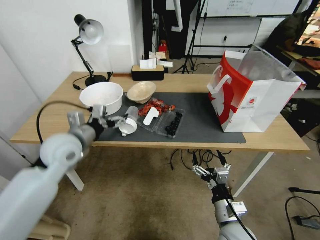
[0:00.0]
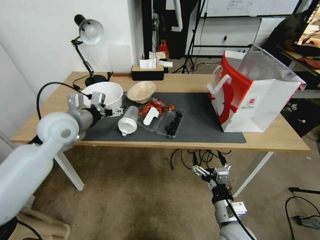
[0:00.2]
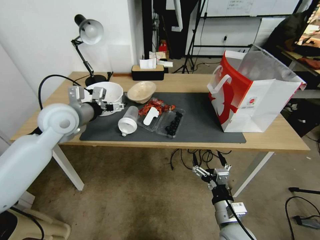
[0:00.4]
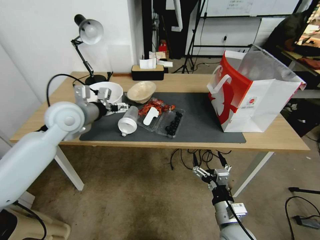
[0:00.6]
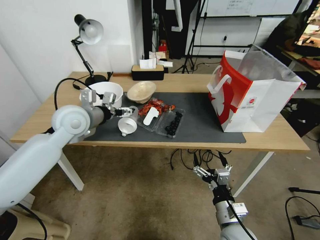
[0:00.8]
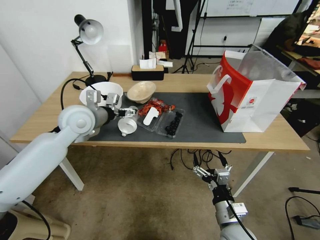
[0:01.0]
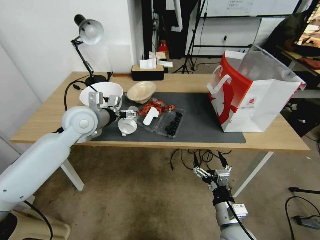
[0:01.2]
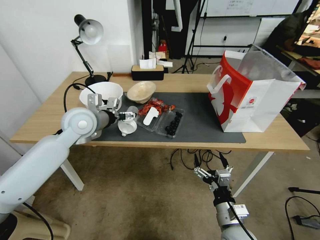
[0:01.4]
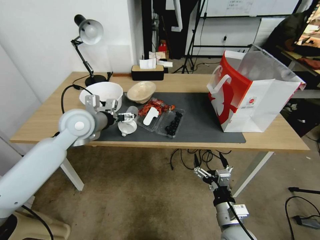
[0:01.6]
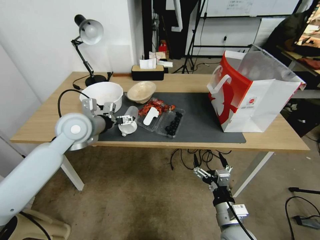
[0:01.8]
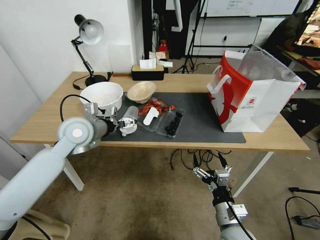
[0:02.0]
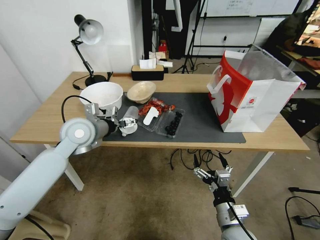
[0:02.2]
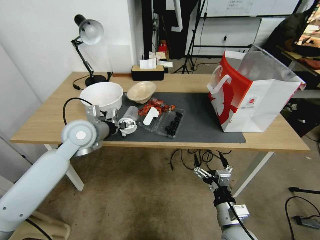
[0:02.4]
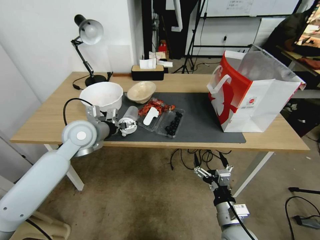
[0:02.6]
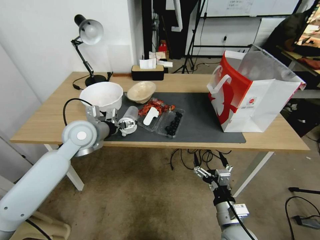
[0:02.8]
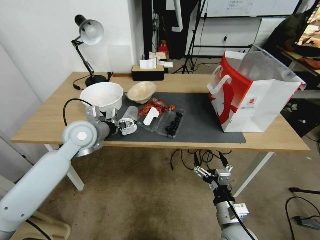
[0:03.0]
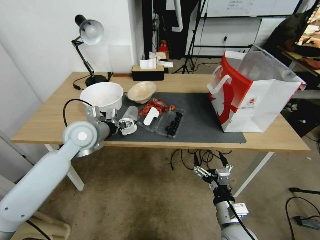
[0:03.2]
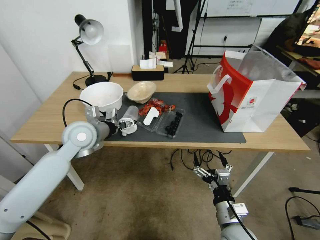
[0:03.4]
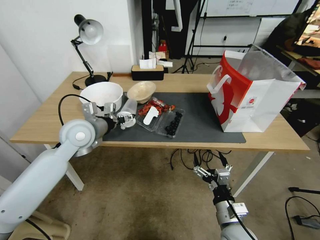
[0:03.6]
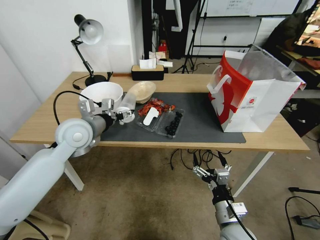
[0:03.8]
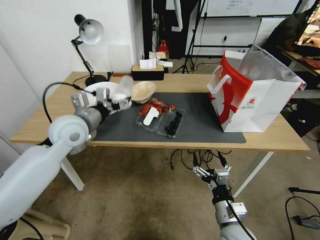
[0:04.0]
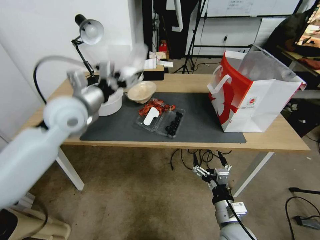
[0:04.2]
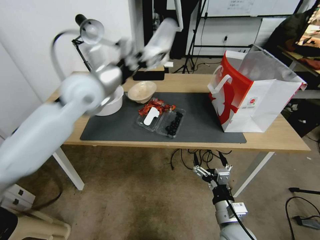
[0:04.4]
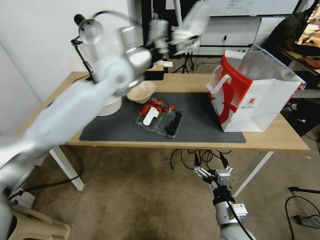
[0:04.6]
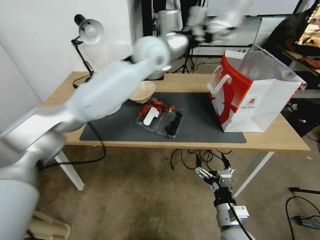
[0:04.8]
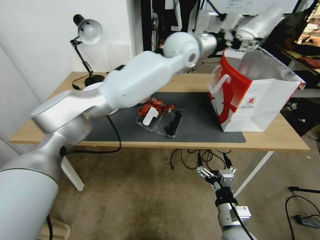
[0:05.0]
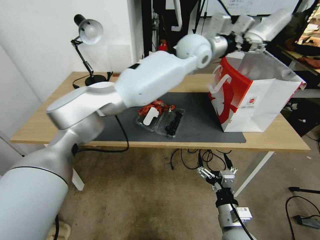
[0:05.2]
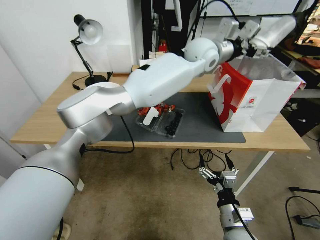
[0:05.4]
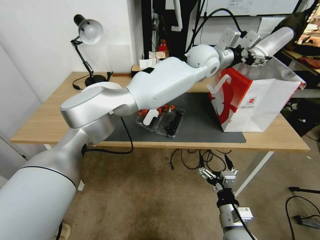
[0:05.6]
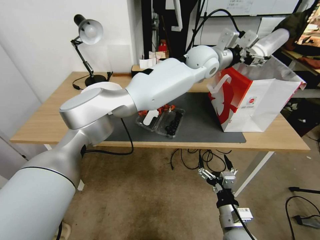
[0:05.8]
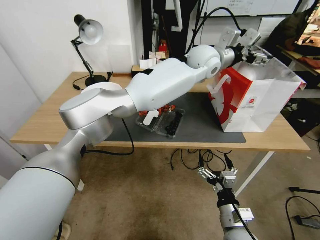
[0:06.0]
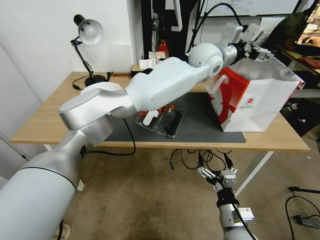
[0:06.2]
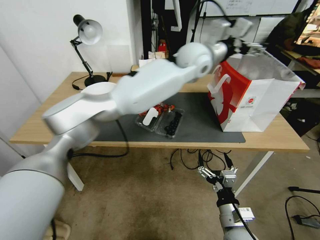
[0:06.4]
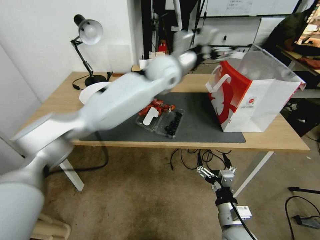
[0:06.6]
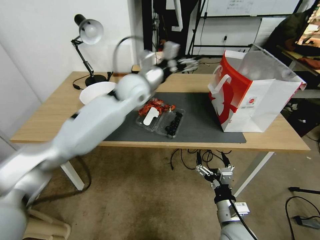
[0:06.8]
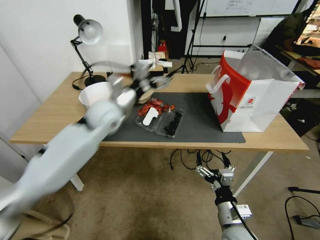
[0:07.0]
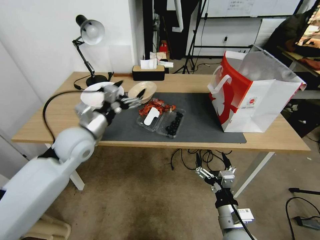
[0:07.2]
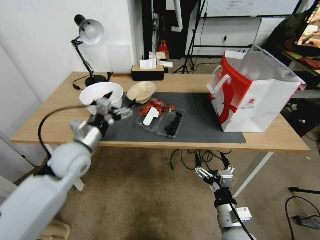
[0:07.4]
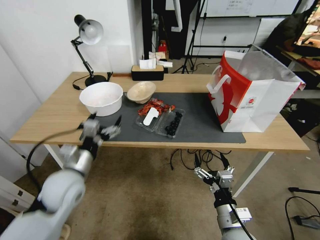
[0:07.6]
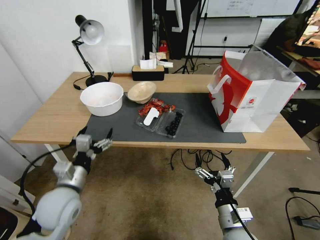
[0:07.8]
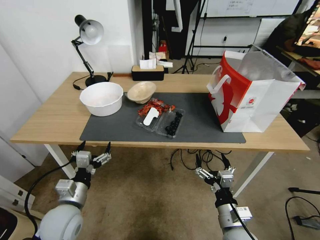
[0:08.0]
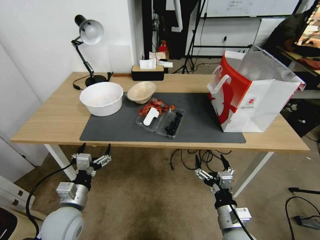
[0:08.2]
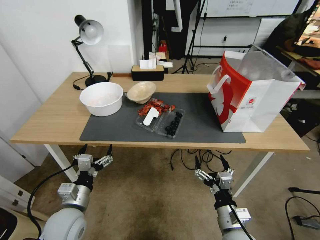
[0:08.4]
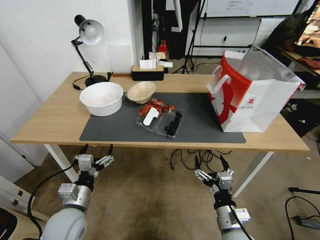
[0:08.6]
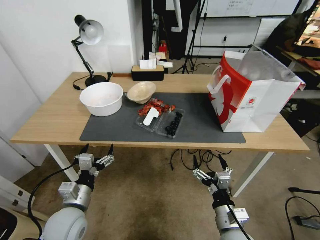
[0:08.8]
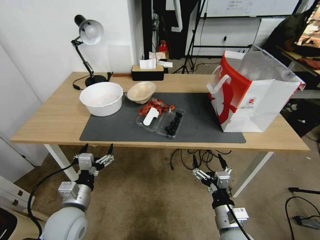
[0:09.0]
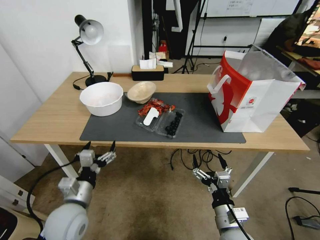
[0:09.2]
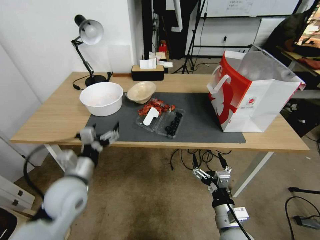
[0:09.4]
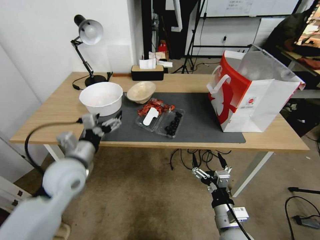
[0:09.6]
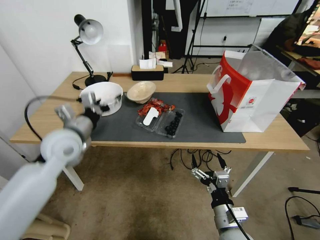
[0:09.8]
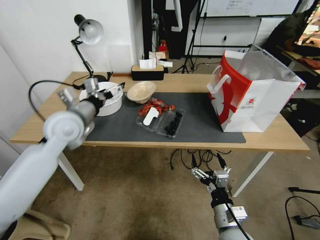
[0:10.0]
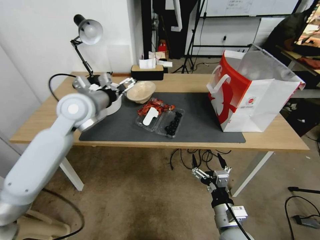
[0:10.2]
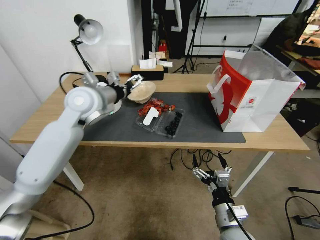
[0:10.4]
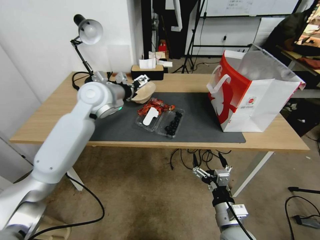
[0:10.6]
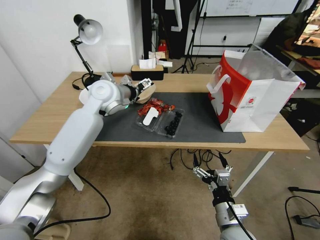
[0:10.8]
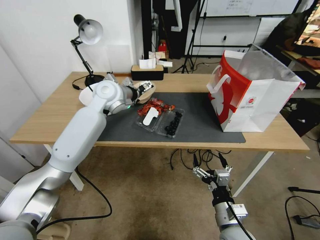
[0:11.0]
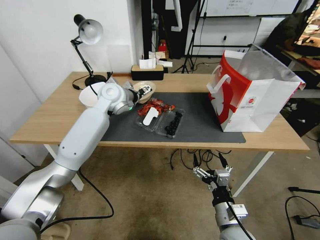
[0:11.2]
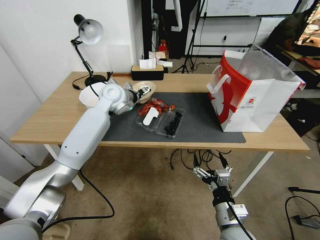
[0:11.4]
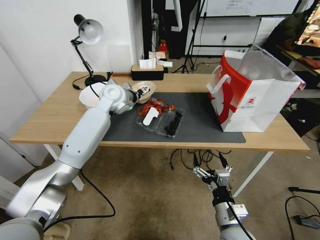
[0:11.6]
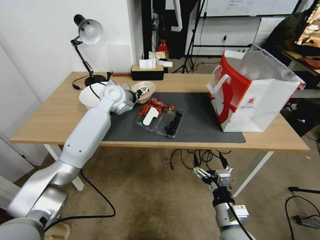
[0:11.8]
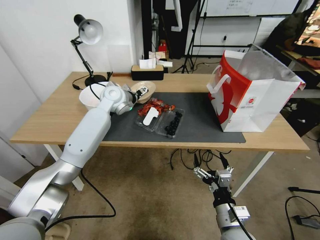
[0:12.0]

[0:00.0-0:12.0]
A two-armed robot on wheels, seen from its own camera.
0:00.0 to 0:01.6: The left gripper shifts roughly 5 cm forward.
0:01.6 to 0:03.0: The grippers stay close to where they were, moving slightly.
0:03.0 to 0:04.4: The left gripper shifts roughly 15 cm upward.
0:04.4 to 0:06.0: The left gripper goes about 35 cm to the right and forward.
0:06.0 to 0:07.6: The left gripper heads to the left, backward and downward, covering approximately 50 cm.
0:07.6 to 0:09.0: The left gripper shifts about 10 cm downward and backward.
0:09.0 to 0:10.4: The left gripper is displaced forward and upward by some 35 cm.
0:10.4 to 0:12.0: The left gripper goes approximately 15 cm forward and downward.

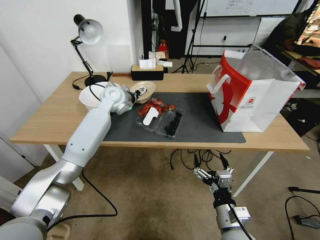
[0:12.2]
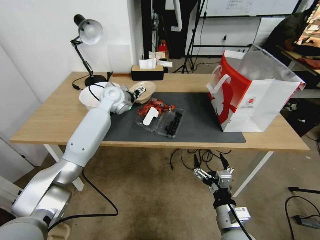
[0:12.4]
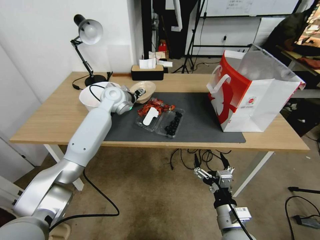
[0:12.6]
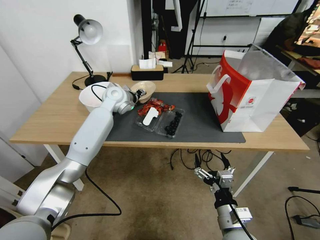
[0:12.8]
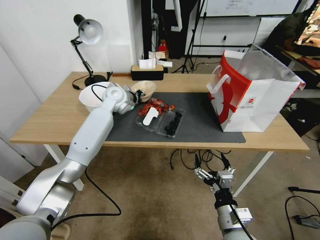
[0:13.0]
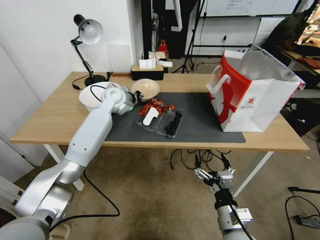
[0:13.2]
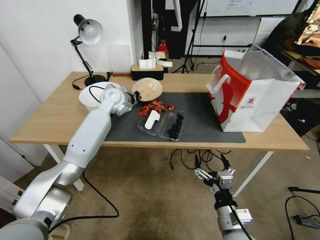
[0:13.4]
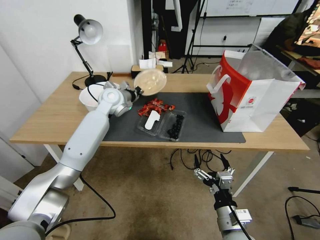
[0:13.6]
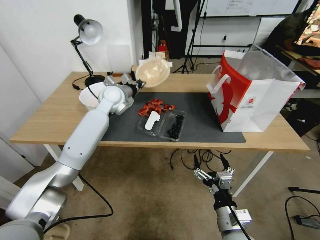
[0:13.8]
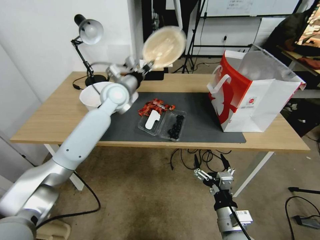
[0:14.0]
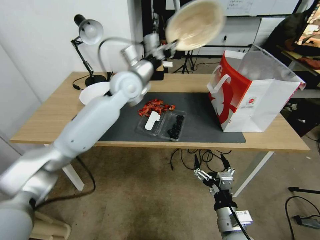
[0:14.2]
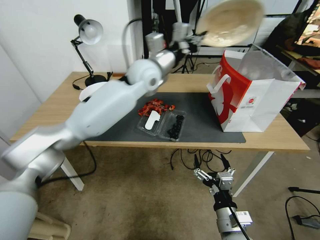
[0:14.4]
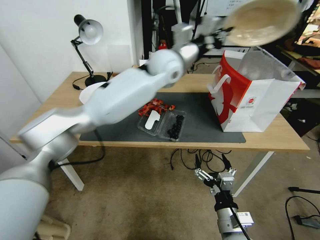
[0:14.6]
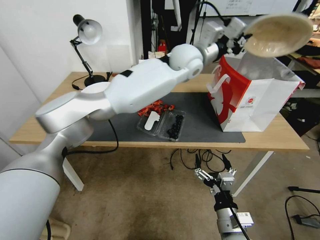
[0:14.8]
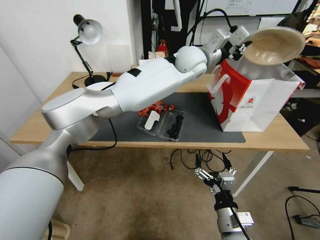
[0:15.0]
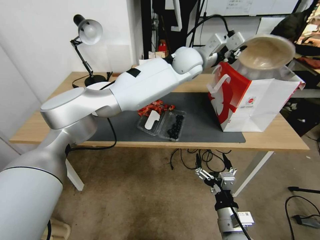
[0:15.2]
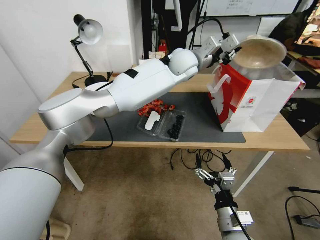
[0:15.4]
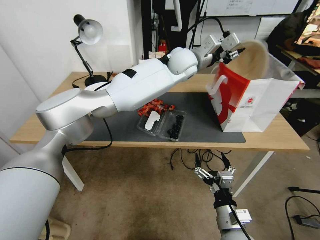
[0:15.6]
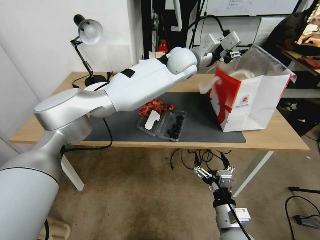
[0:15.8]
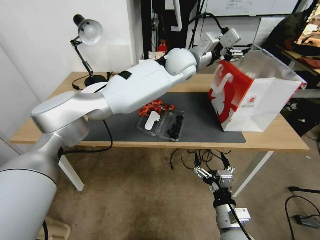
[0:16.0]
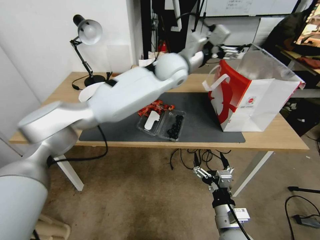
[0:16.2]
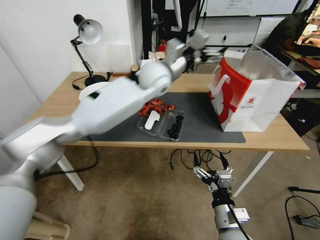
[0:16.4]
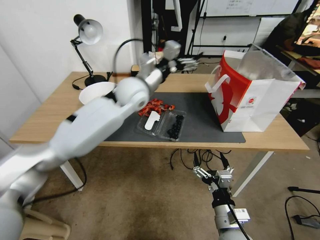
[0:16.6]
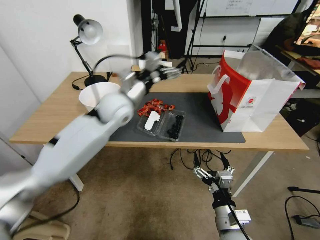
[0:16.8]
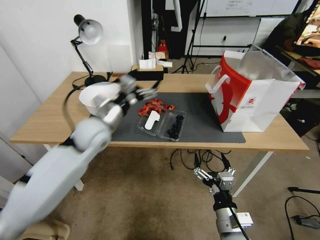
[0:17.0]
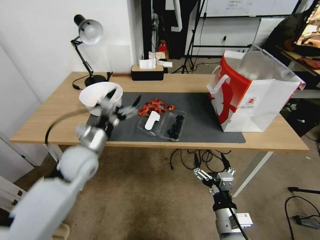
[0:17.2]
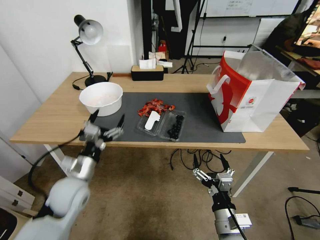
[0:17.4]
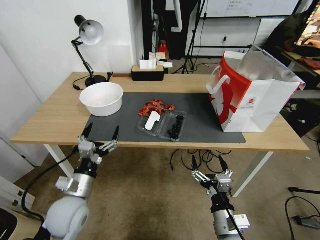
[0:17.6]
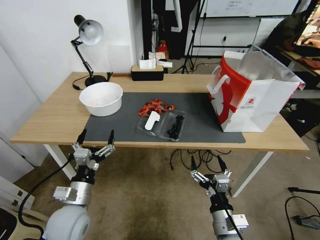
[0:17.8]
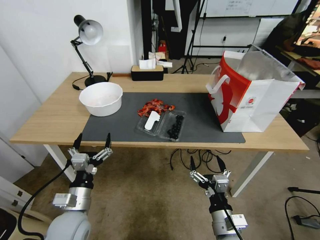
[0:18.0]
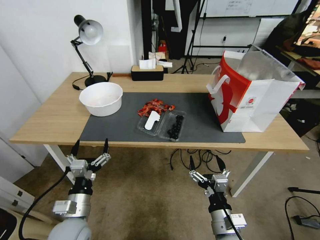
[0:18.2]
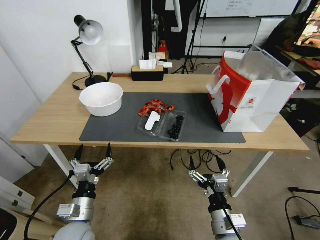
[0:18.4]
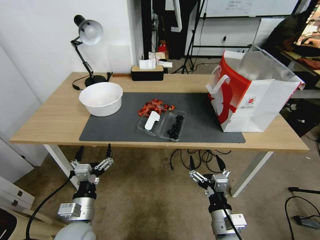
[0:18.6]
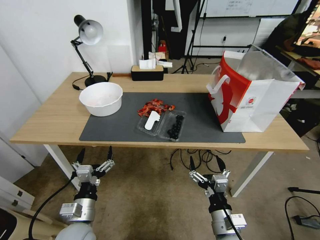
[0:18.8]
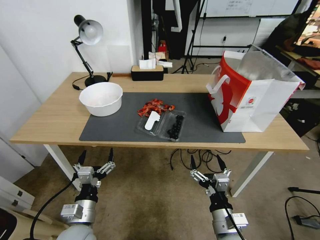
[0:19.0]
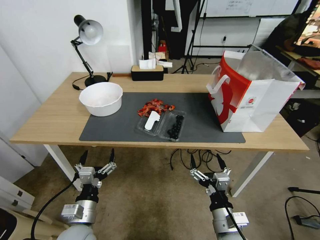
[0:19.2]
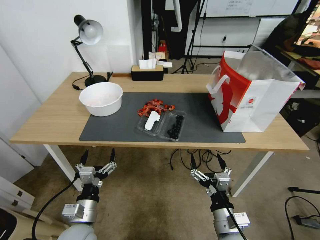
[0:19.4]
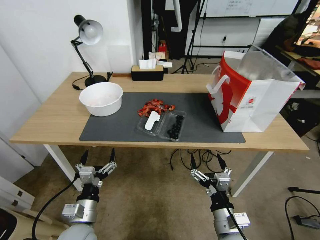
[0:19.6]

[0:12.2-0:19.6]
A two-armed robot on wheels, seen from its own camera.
0:12.2 to 0:13.6: The left gripper closes.
0:13.6 to 0:15.2: The left gripper goes about 30 cm to the right and upward.
0:15.2 to 0:16.6: The left gripper is displaced to the left and backward by about 20 cm, and opens up.
0:16.6 to 0:18.2: The left gripper shifts roughly 40 cm backward, downward and to the left.
0:18.2 to 0:19.6: There are only small adjustments of the grippers.
